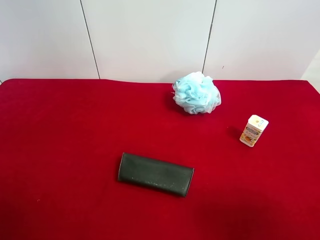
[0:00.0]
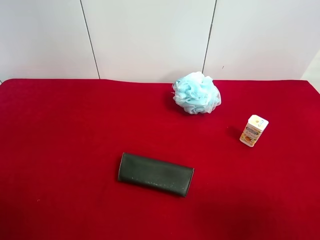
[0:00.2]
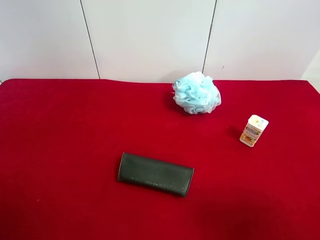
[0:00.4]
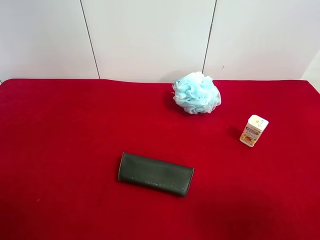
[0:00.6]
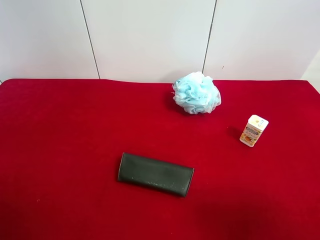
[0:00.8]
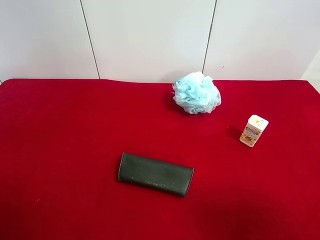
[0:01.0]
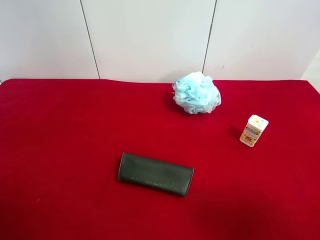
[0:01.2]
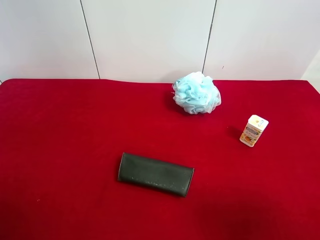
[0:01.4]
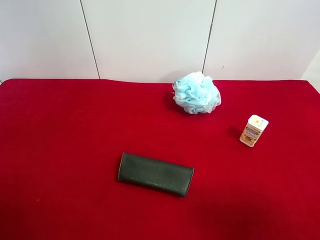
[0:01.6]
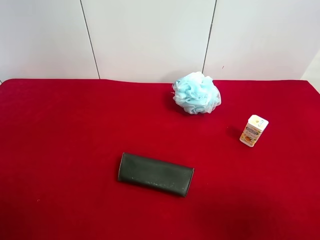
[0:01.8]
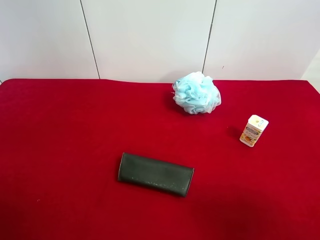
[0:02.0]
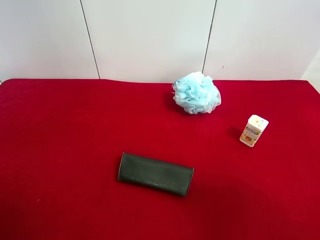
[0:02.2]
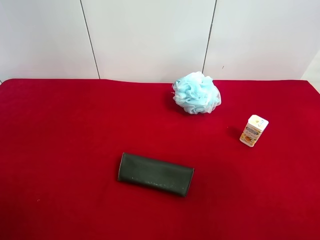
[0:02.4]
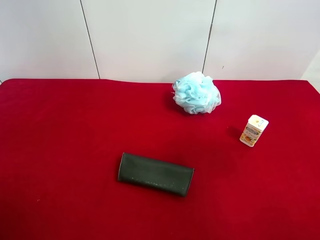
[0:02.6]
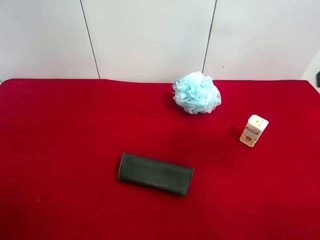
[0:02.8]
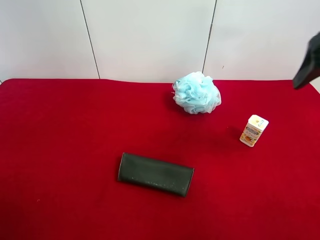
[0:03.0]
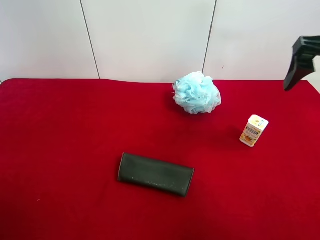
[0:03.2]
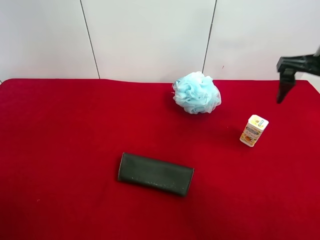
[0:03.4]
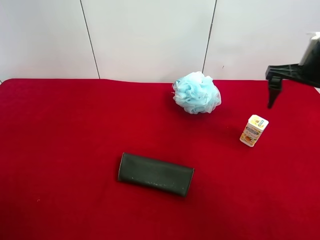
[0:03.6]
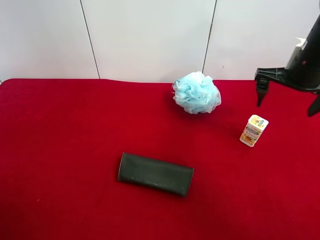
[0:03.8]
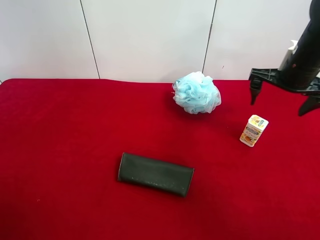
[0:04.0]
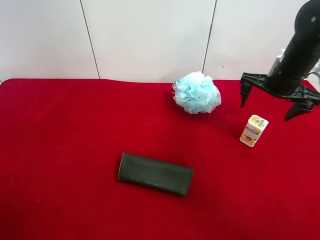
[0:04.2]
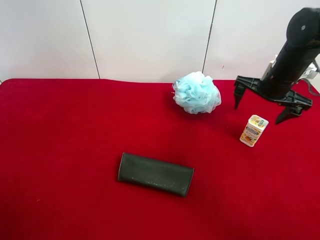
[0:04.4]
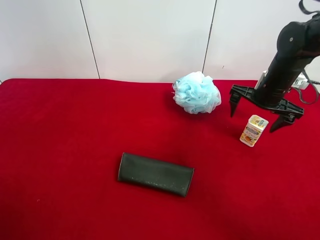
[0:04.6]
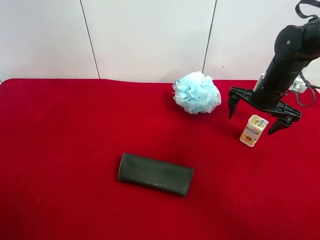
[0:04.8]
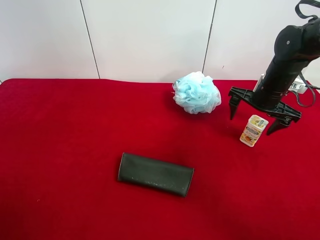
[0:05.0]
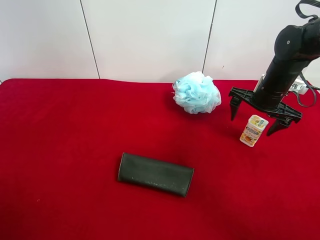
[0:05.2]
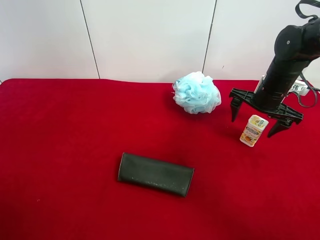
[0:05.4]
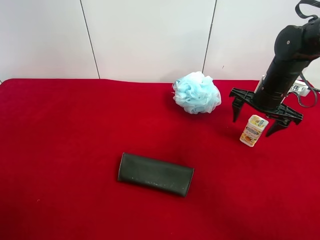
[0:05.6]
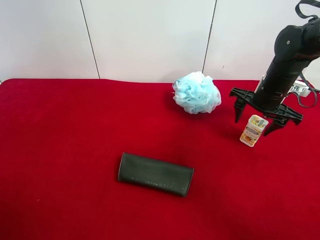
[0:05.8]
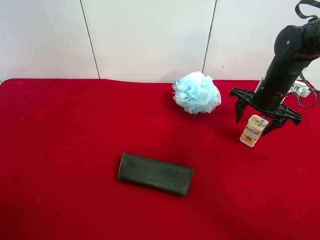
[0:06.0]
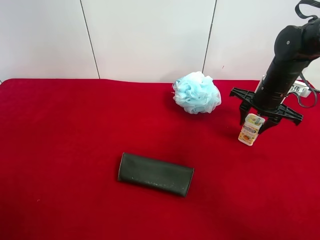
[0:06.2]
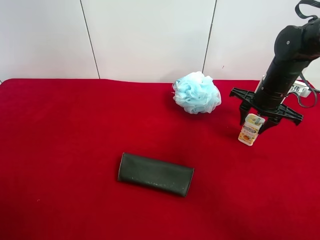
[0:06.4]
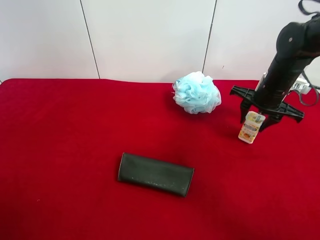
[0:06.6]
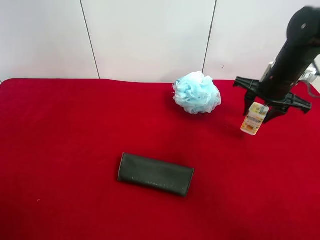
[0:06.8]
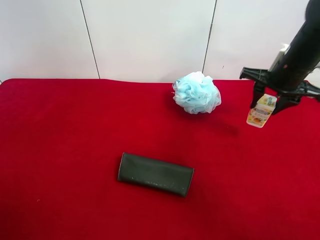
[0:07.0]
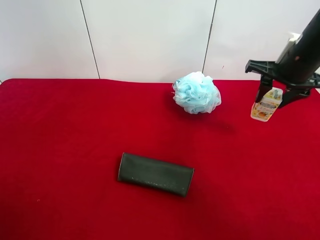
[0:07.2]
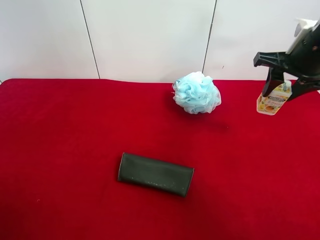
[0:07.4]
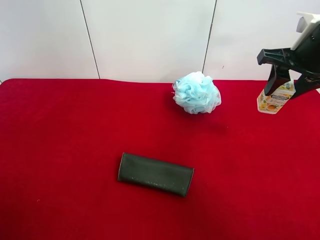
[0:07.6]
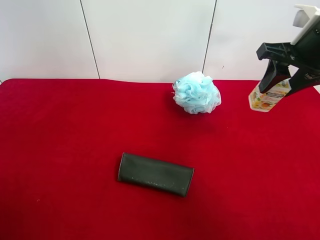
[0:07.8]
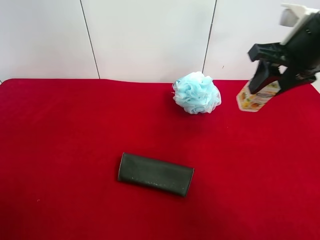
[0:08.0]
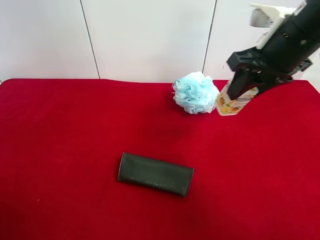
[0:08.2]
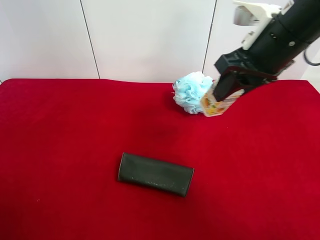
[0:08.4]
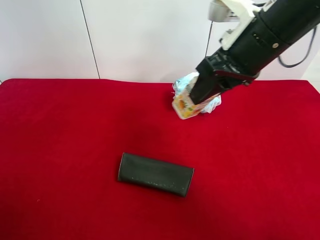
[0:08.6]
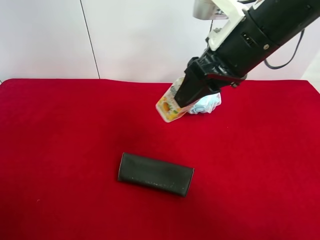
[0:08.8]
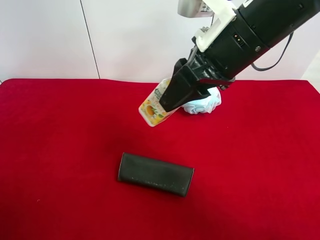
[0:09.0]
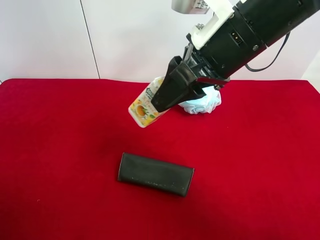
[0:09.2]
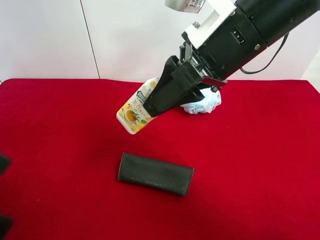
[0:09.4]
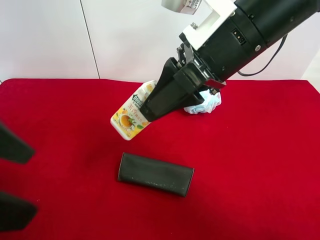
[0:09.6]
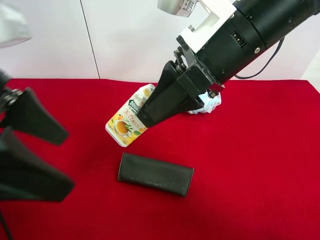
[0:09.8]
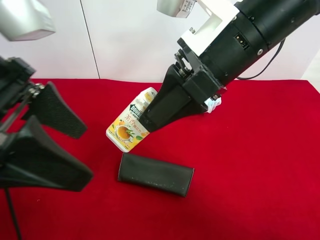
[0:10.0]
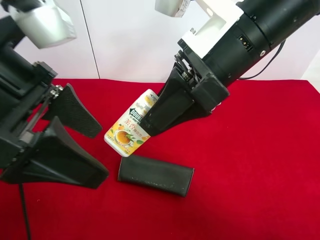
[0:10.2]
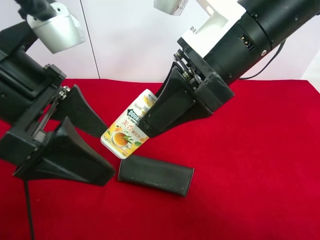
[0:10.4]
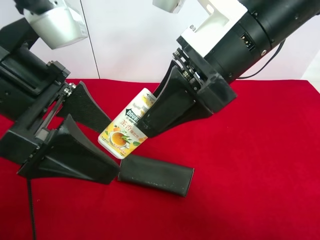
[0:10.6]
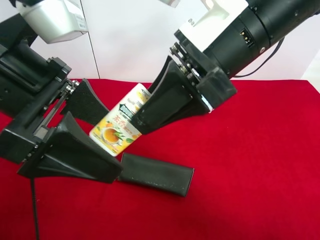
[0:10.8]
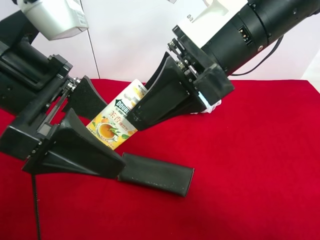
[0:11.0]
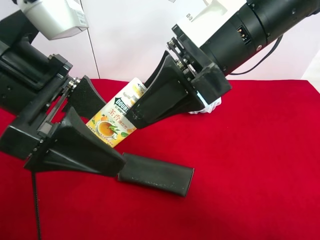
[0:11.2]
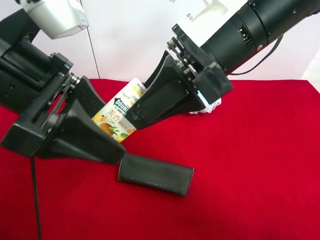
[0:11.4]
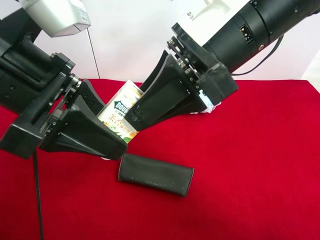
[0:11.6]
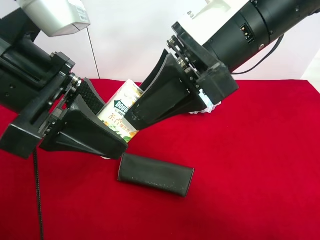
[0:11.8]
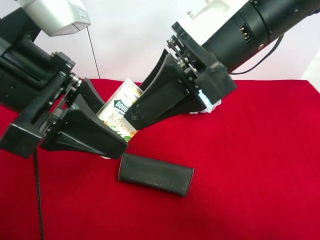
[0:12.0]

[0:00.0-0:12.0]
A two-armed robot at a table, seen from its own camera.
Task of the whole recording: use the right gripper to pick up the item and transfer it from the right gripper to the left gripper.
Step, 0:00.0 to 0:06.2: Use the right gripper to grab the square chewing gum on the right side of the table.
0:00.0 to 0:01.6: Both grippers stay put.
0:01.6 to 0:03.0: The right gripper is displaced forward by approximately 20 cm.
0:03.0 to 0:04.4: The right gripper heads downward and forward, covering approximately 20 cm.
0:04.4 to 0:06.0: The right gripper closes up.
0:06.0 to 0:07.6: The right gripper travels upward and backward by roughly 15 cm.
0:07.6 to 0:09.0: The right gripper moves to the left, some 15 cm, while the left gripper ends up some 5 cm from where it was.
0:09.0 to 0:10.4: The left gripper moves forward and to the right, approximately 15 cm.
0:10.4 to 0:12.0: The left gripper closes.

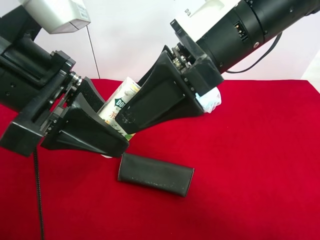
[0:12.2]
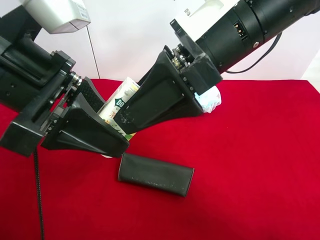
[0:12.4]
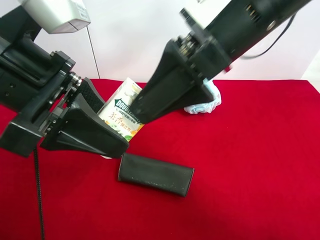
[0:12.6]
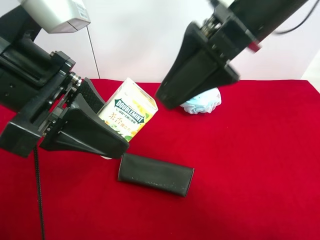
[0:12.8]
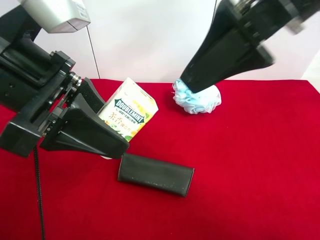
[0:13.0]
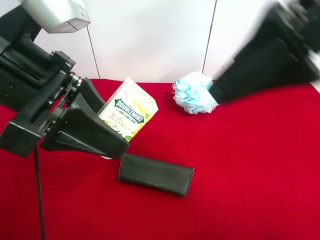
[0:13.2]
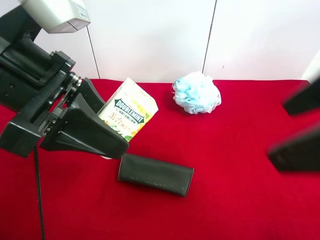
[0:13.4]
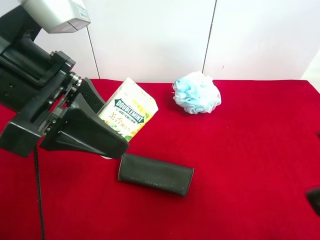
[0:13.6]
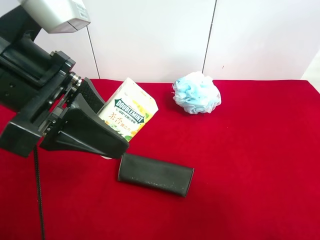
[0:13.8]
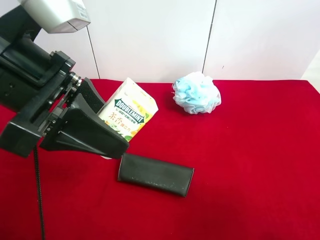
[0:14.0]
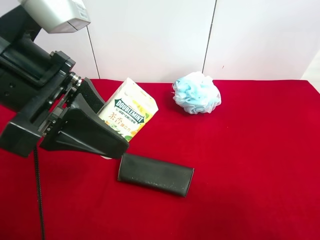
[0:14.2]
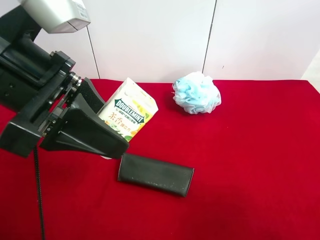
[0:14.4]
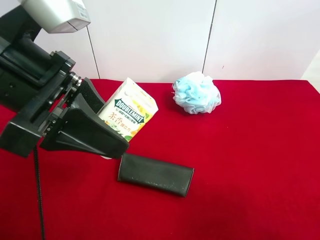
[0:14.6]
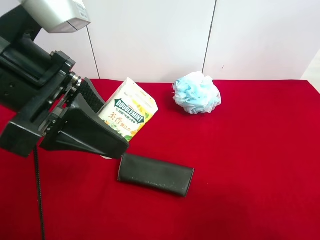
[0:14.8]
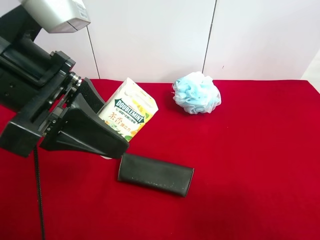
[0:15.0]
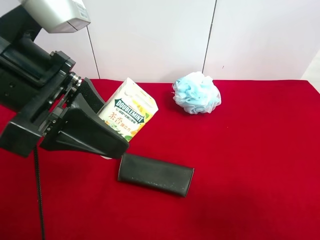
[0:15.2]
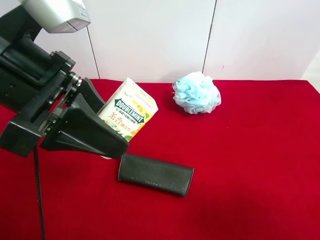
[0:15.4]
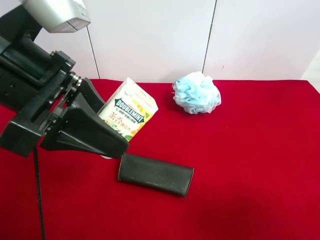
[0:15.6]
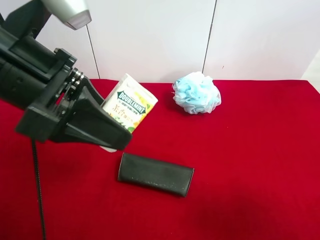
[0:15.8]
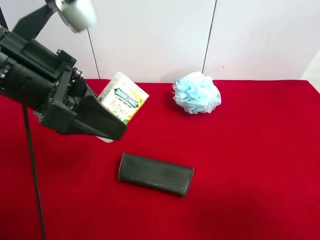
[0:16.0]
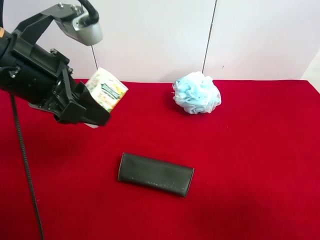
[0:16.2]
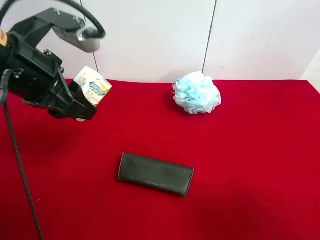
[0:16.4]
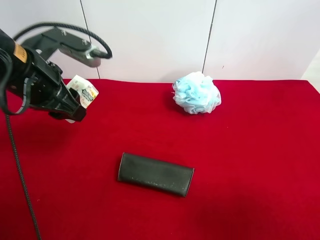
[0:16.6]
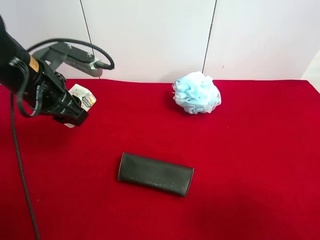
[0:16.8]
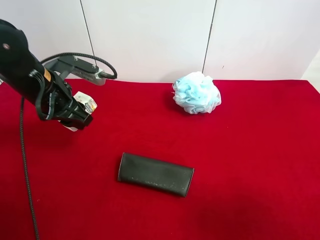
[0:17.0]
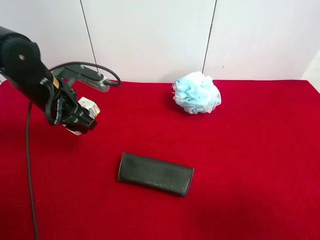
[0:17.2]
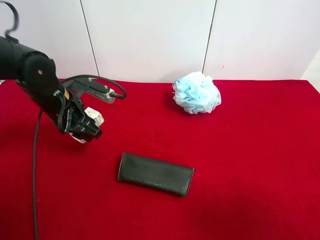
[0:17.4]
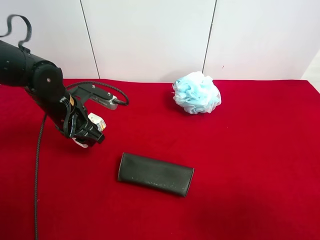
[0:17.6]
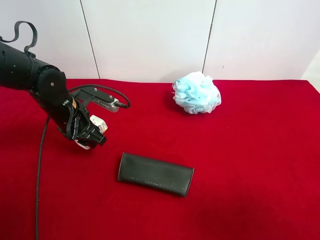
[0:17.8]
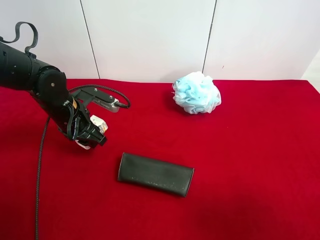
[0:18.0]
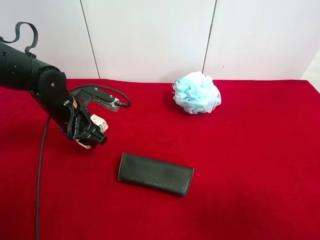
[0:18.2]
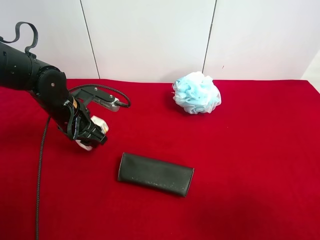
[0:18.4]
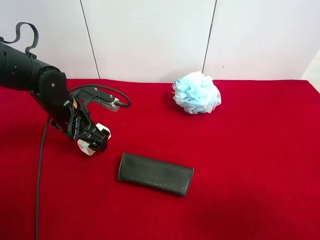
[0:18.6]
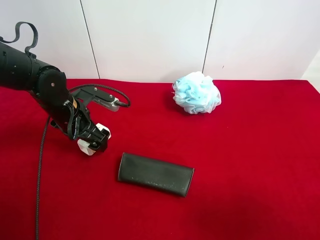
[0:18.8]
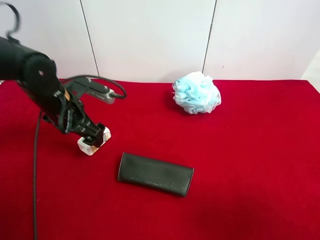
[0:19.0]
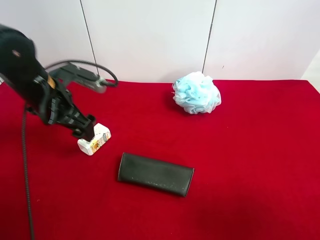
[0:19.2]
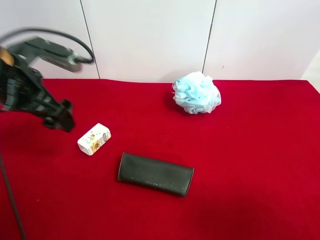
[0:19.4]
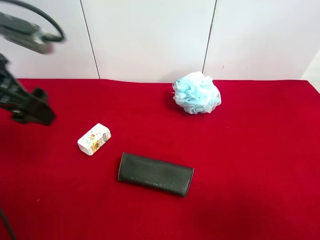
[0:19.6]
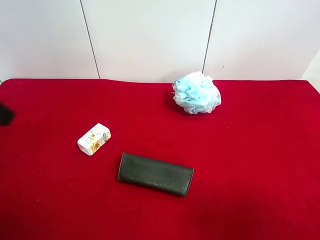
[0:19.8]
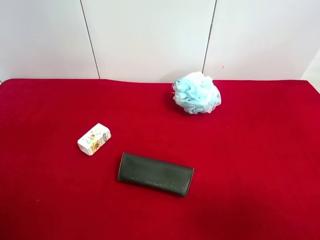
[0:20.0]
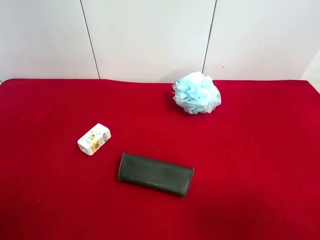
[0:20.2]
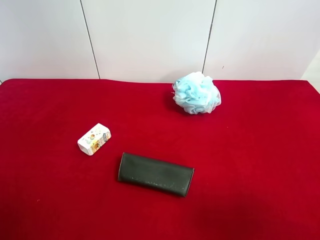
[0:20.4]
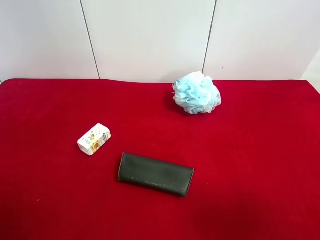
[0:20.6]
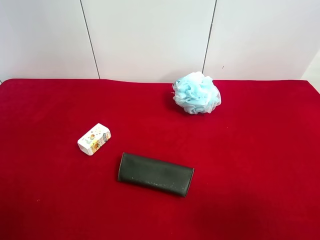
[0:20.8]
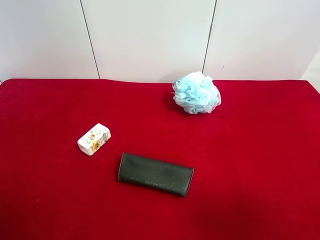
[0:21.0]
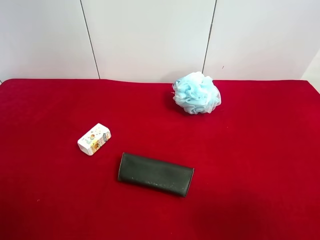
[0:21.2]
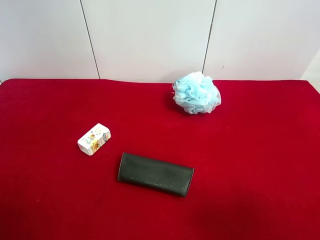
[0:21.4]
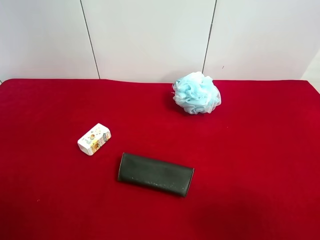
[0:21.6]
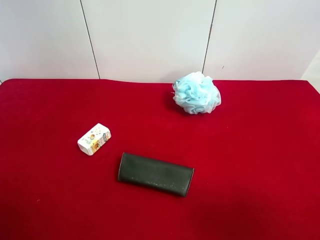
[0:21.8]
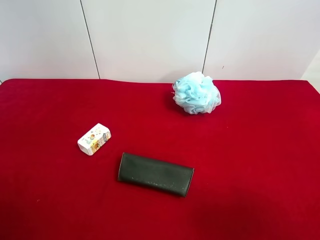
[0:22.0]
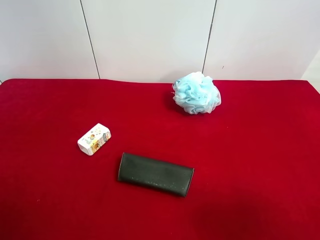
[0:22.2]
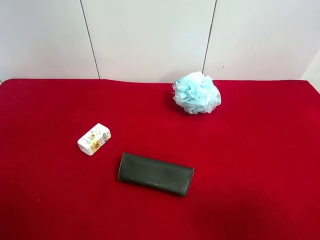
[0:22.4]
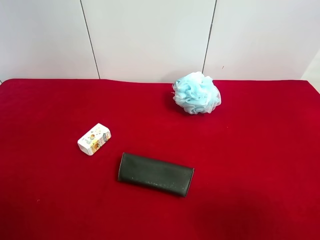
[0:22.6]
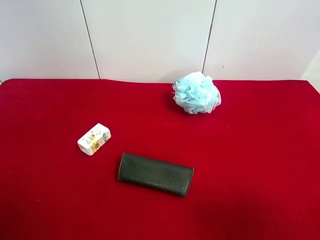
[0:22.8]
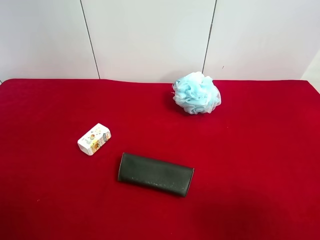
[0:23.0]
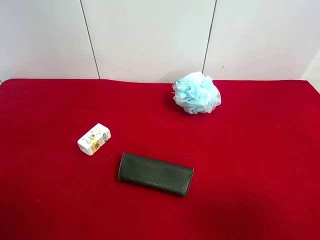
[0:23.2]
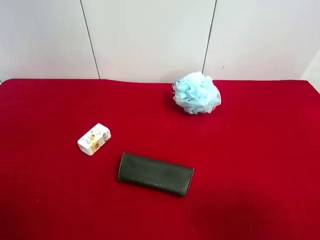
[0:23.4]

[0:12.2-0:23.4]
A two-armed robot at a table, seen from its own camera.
Task of the whole recording: use the right gripper to pick up the item and transfer it from the right gripper to the left gripper.
Step, 0:12.6 to 0:18.8: The left gripper places square chewing gum on the left side of the table.
0:12.2 to 0:13.8: The right gripper heads to the right and backward, covering some 25 cm.
0:15.4 to 0:17.0: The left gripper moves forward, downward and to the left, approximately 15 cm.
0:17.0 to 0:18.6: The left gripper is displaced downward by approximately 5 cm, and opens.
0:18.6 to 0:20.2: The left gripper moves backward, upward and to the left, roughly 35 cm.
0:21.8 to 0:23.4: Both grippers stay put.
